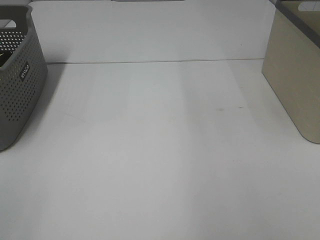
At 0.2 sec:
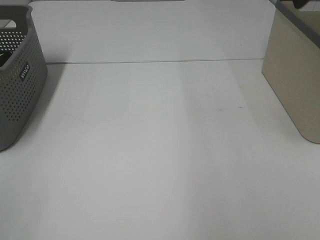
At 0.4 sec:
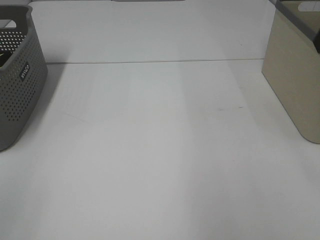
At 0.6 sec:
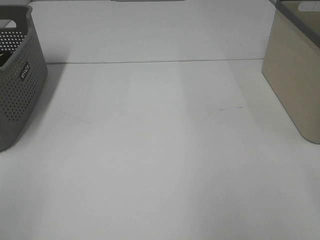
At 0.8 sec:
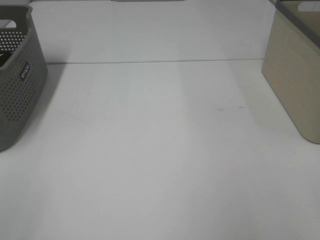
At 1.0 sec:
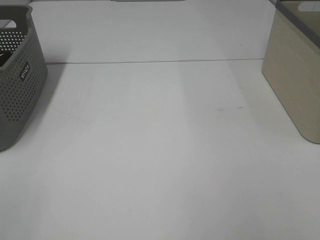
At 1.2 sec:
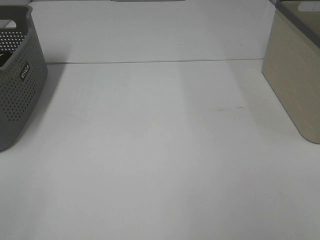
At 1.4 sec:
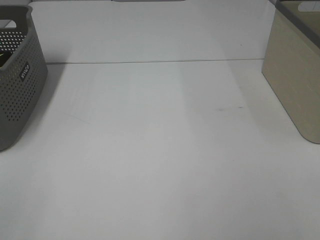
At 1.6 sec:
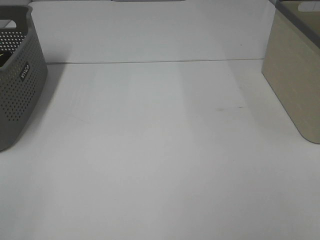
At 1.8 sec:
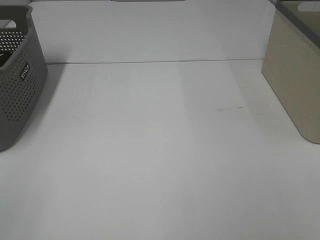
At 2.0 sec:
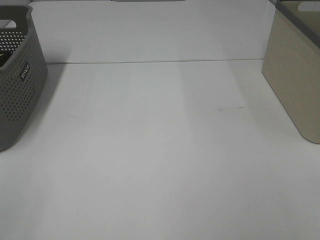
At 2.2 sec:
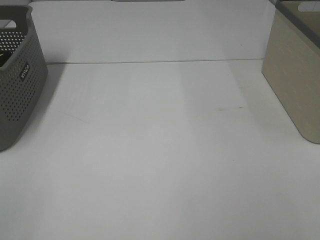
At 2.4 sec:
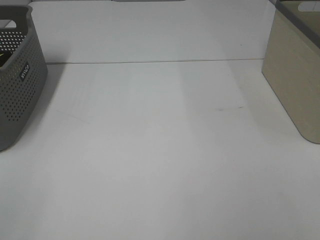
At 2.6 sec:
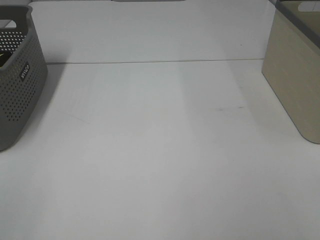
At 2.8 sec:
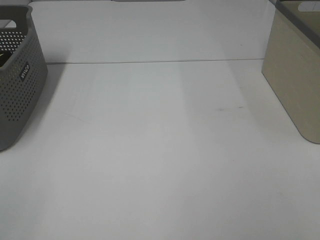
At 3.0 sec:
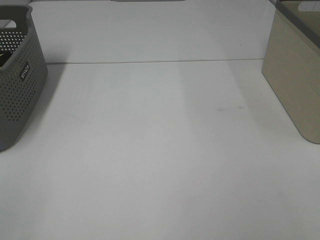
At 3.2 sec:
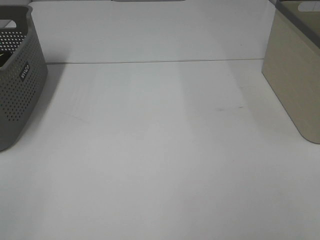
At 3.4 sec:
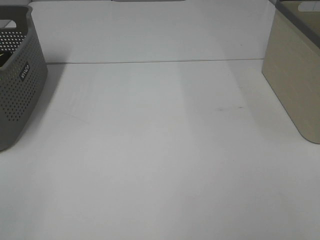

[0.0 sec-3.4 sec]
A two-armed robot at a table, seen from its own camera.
1.6 sec to 3.4 sec: The two grippers keep their place.

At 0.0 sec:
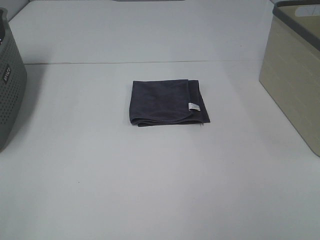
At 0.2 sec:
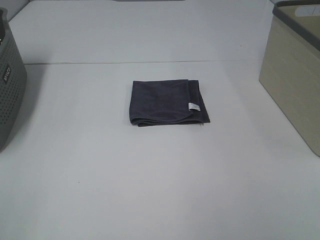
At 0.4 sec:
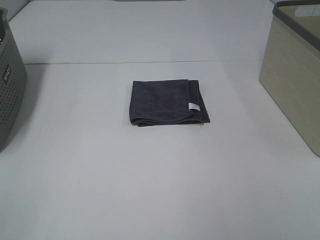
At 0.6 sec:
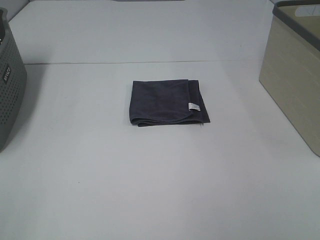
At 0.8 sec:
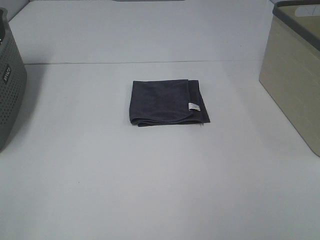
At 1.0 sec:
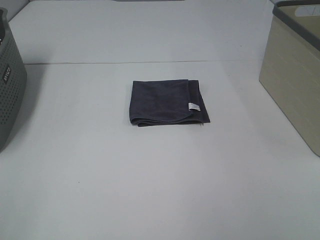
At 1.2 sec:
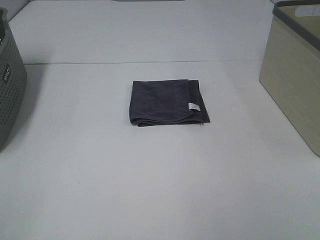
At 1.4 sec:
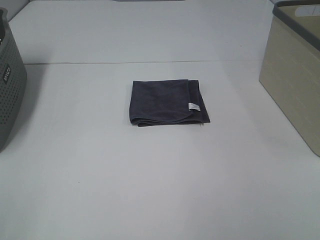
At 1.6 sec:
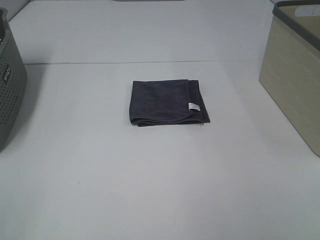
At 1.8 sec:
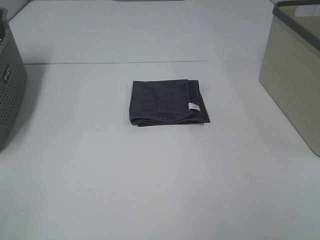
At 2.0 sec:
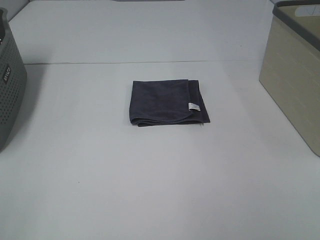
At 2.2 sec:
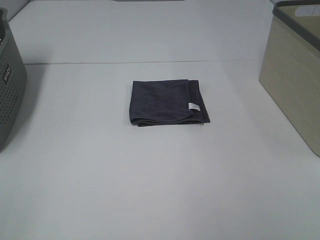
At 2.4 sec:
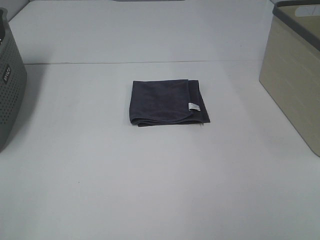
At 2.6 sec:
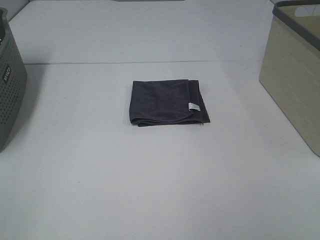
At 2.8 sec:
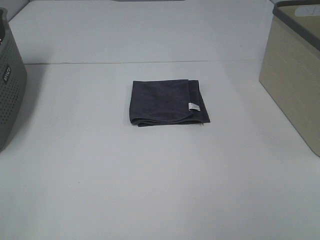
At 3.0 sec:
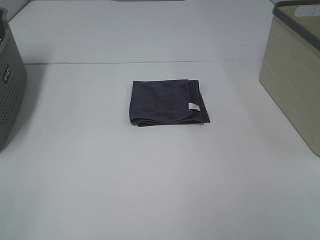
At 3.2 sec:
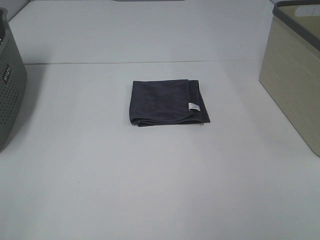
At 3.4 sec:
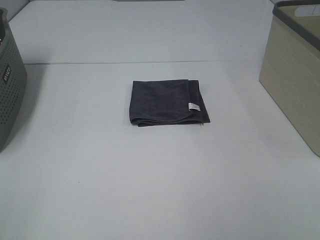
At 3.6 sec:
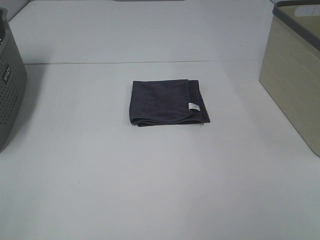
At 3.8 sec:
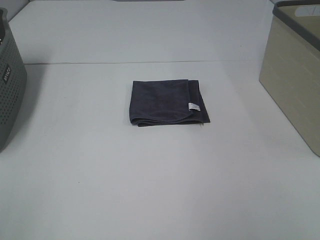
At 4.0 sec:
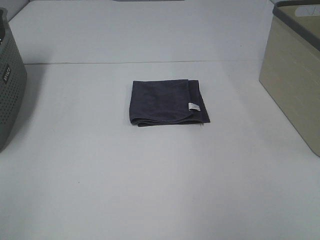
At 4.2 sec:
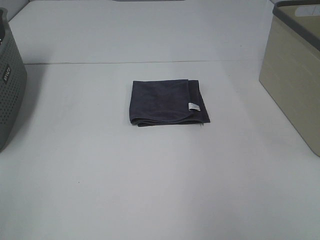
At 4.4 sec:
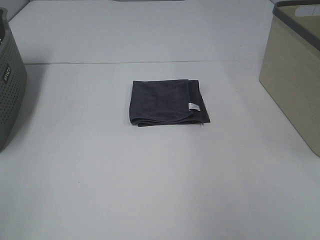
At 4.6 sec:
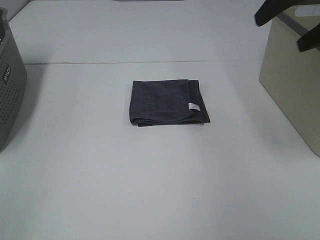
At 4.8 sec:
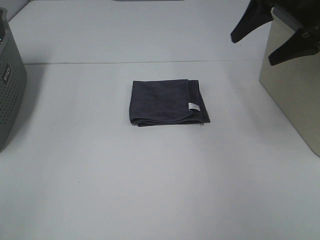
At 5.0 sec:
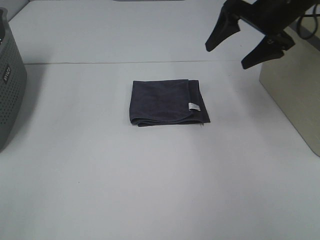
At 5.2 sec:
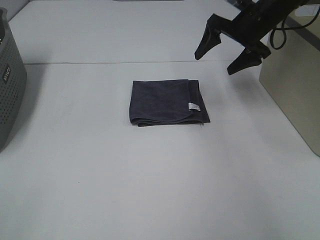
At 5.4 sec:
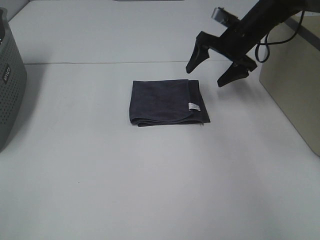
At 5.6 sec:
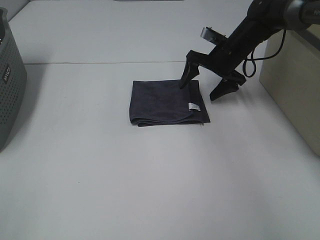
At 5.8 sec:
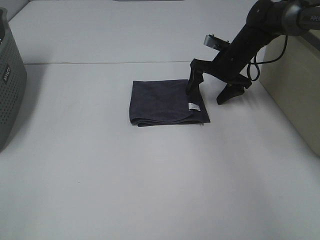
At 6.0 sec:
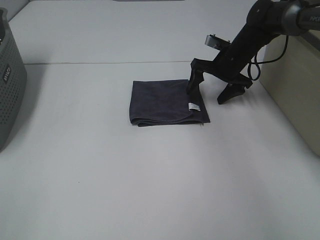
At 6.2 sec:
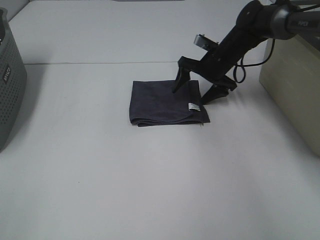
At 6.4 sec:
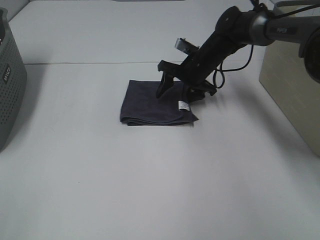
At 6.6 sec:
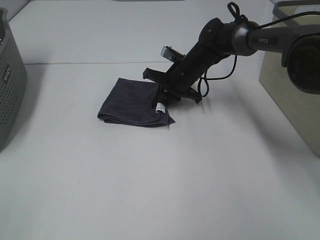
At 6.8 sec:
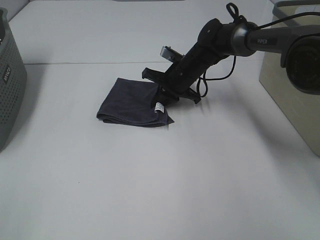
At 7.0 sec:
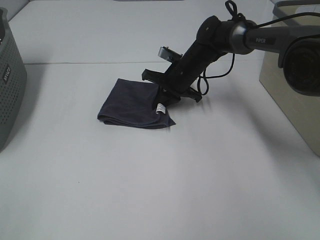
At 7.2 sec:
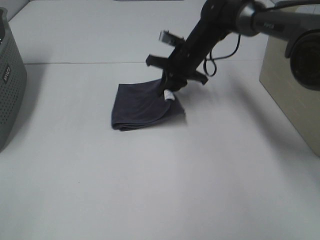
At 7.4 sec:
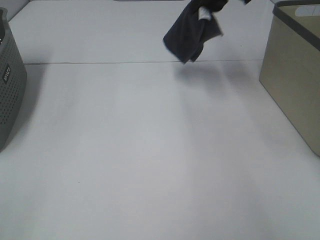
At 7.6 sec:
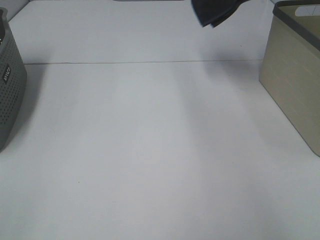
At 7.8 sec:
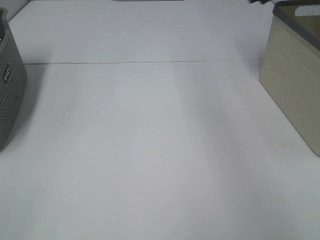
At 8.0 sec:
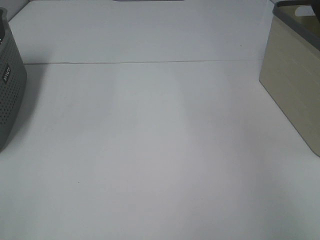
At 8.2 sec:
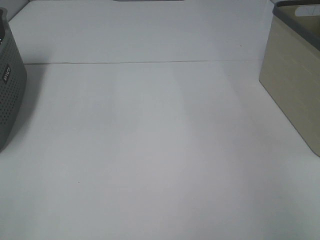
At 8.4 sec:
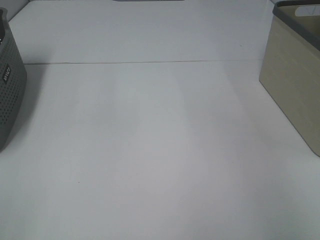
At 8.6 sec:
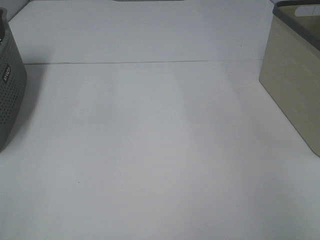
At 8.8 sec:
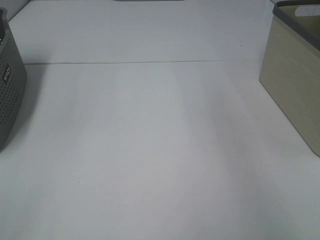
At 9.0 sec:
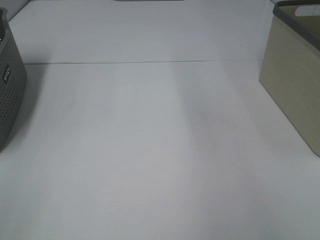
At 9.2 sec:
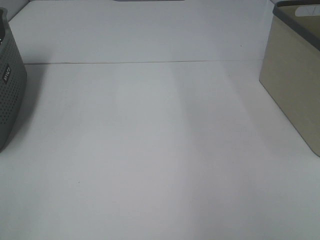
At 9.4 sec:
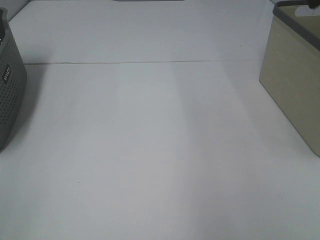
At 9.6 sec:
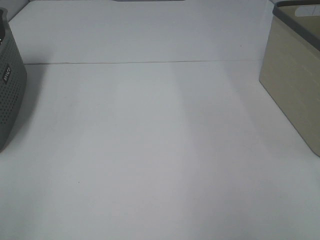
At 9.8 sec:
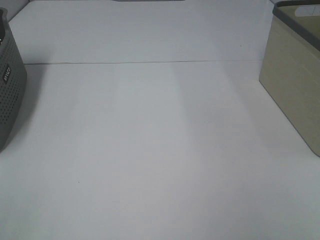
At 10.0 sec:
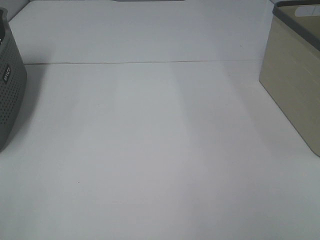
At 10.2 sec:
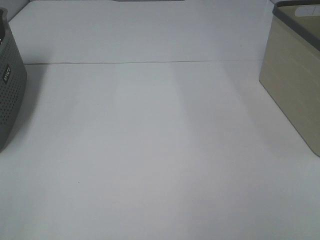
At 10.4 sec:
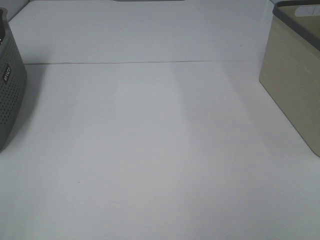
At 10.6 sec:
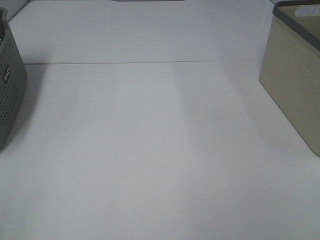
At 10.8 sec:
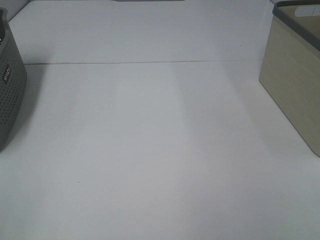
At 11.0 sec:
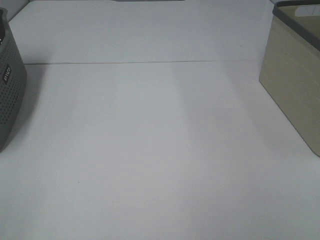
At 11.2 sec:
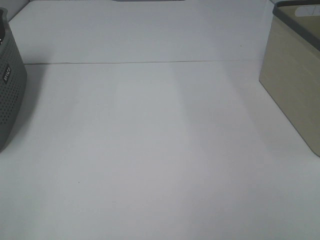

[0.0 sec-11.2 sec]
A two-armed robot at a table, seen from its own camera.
Step, 0.0 sec to 6.6 sec: Right hand: grab the folded grey towel.
Step, 6.8 sec to 8.4 sec: Right hand: place the grey towel in right basket.
0.0 sec to 3.2 sec: The two grippers keep their place.
3.2 sec to 4.8 sec: The right gripper is displaced forward by about 35 cm.
4.8 sec to 6.4 sec: The right gripper is displaced downward, to the left and forward by some 30 cm, and closes up.
6.4 sec to 8.0 sec: The right gripper goes roughly 40 cm upward and to the right, and closes.
